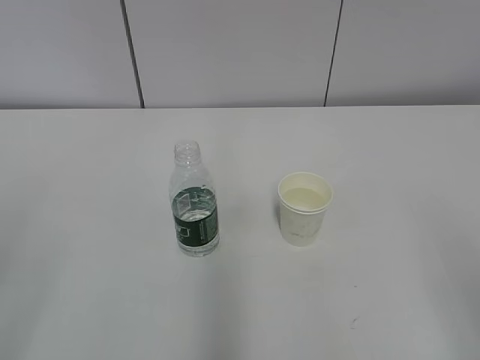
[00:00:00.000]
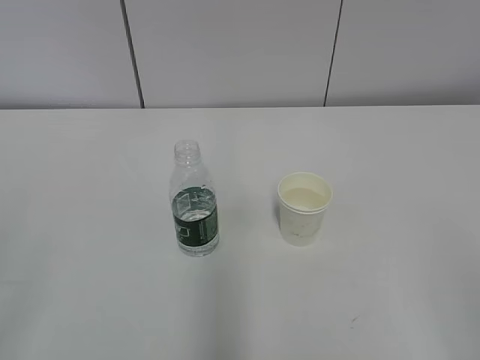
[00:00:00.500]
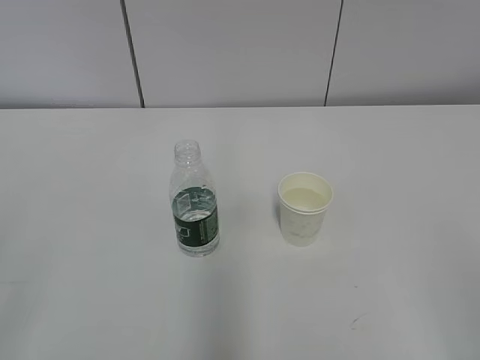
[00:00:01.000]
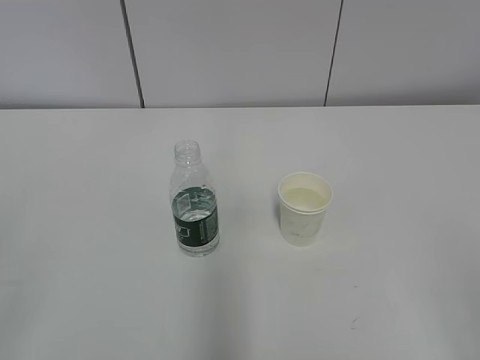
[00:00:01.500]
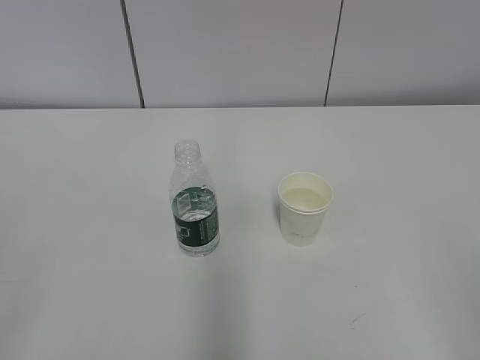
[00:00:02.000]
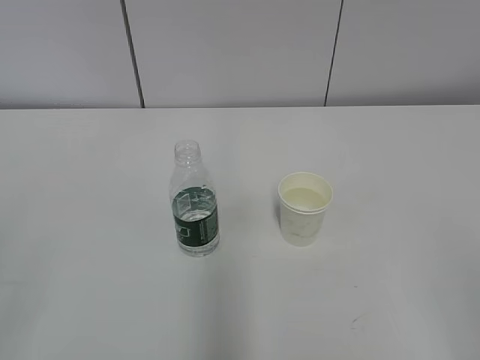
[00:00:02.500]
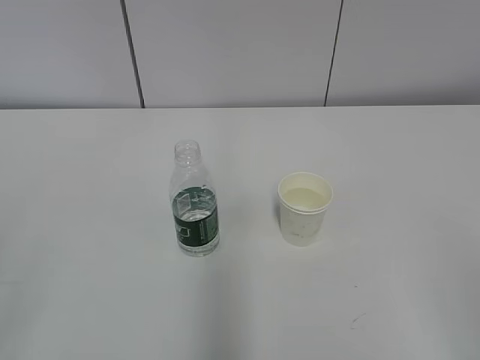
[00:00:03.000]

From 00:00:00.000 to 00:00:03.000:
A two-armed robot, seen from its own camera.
From 00:00:01.500 to 00:00:03.000: Both grippers stay about where they are.

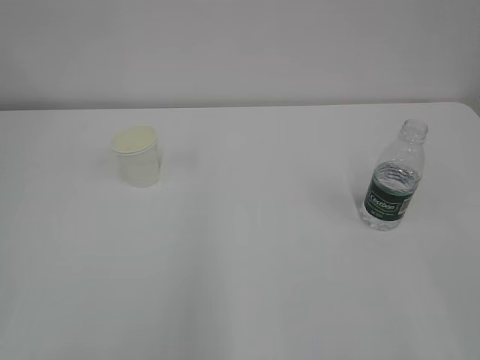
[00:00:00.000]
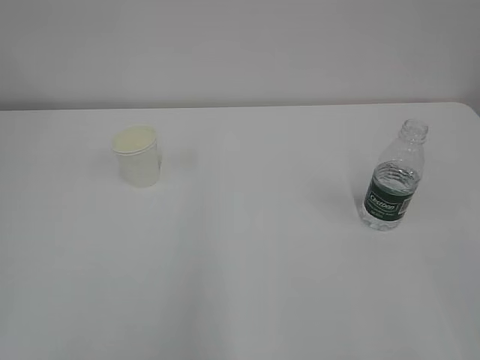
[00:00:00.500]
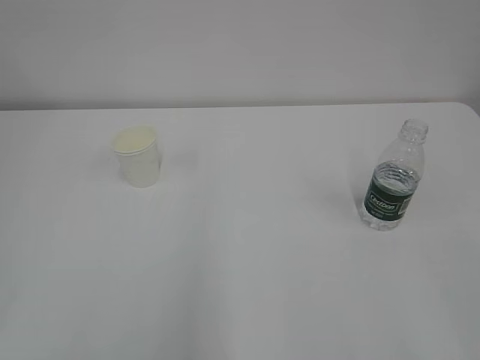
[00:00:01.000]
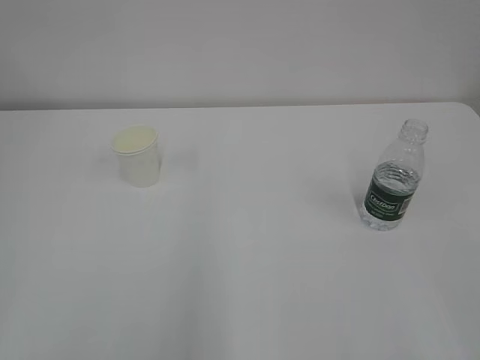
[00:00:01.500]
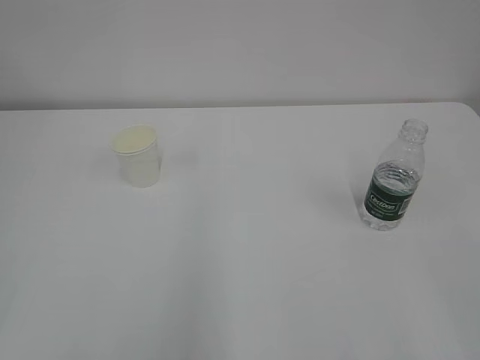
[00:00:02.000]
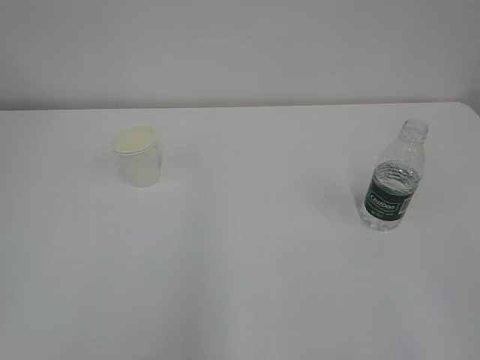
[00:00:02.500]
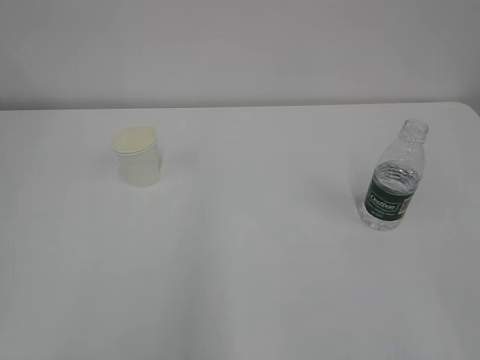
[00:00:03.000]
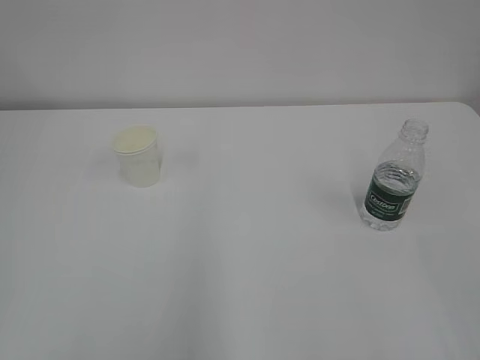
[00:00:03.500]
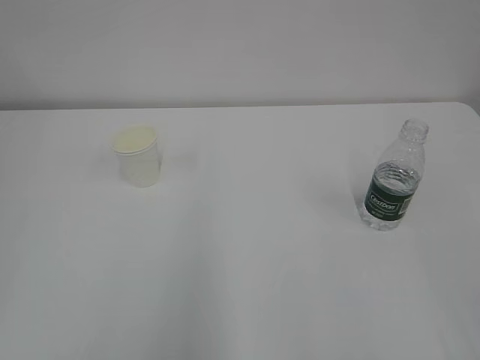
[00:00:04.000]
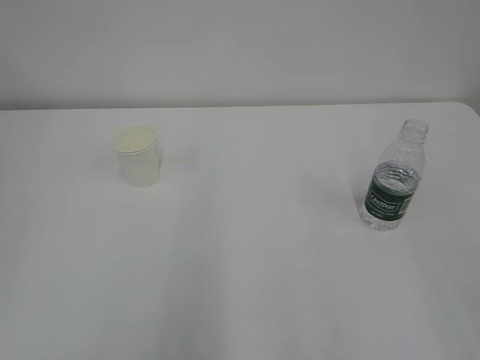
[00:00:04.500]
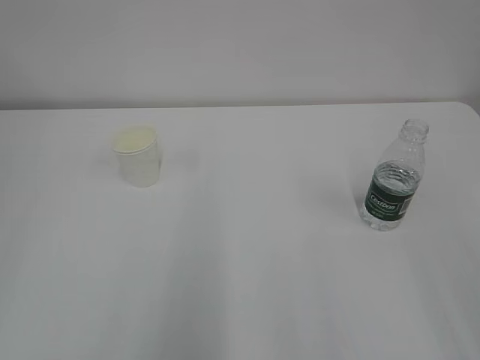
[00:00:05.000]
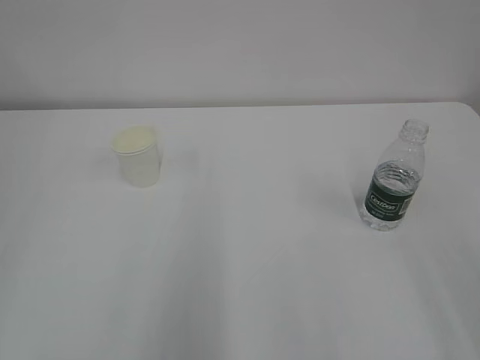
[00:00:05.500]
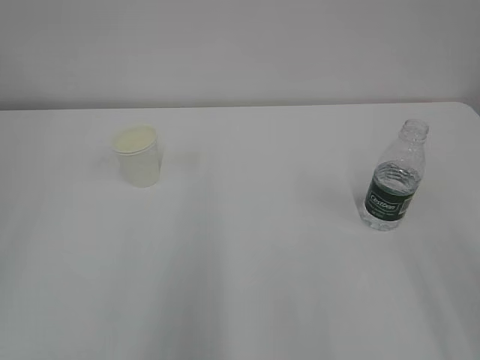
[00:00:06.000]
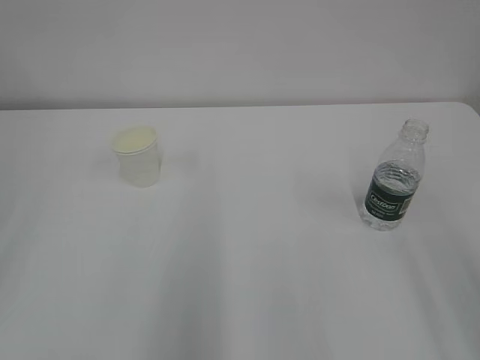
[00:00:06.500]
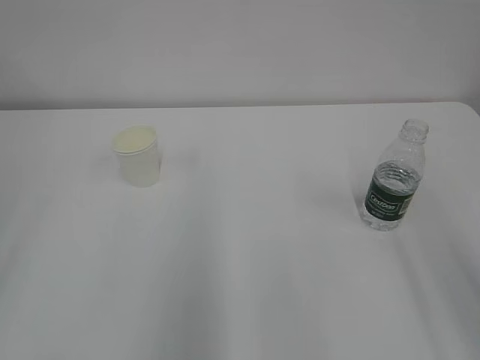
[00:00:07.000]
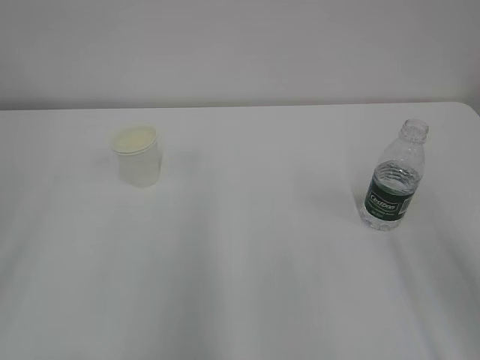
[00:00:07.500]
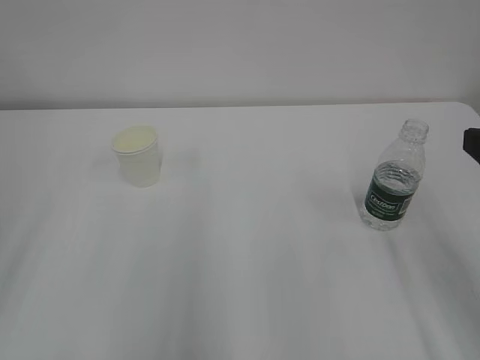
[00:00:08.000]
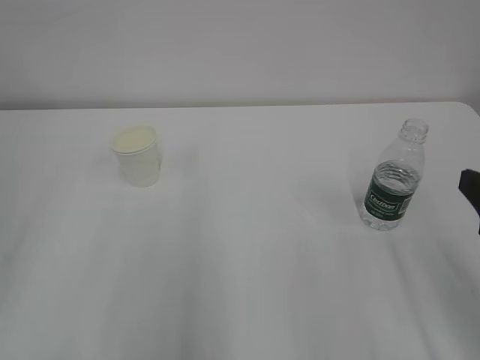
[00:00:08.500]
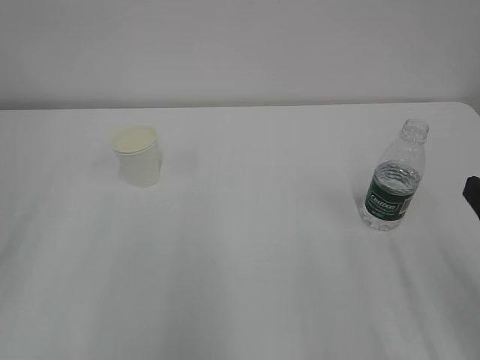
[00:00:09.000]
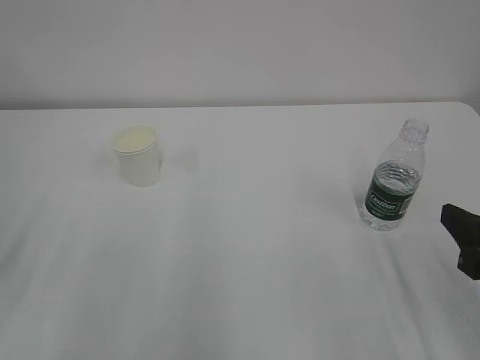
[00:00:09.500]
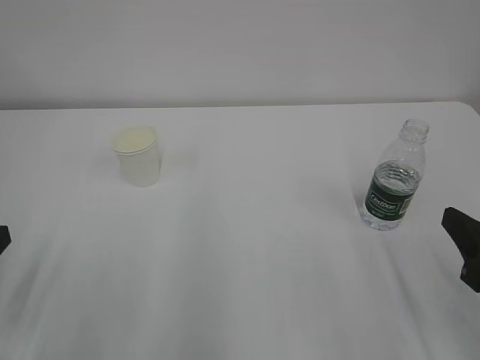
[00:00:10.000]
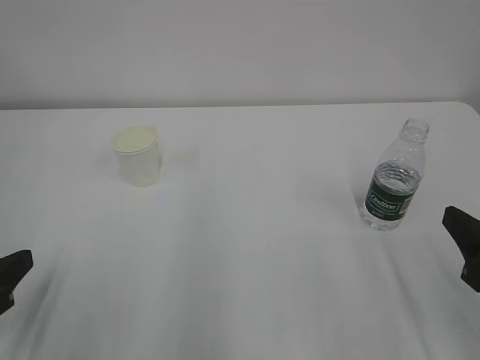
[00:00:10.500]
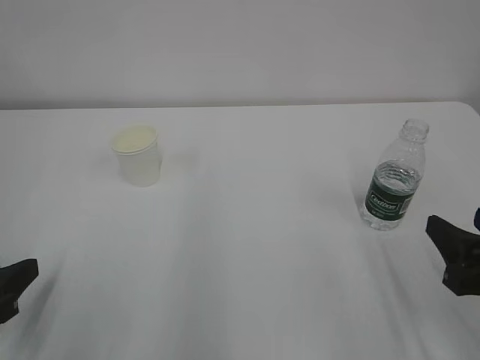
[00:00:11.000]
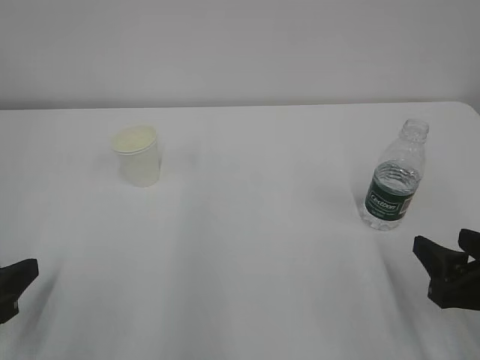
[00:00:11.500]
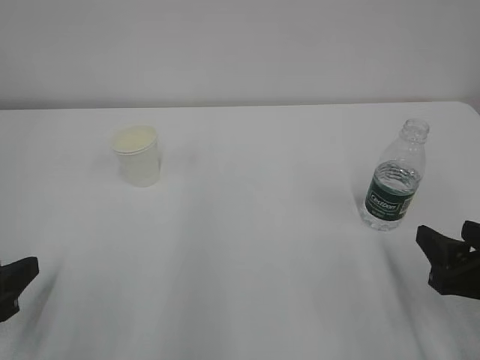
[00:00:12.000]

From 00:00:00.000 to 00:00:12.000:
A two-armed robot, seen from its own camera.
From 00:00:08.000 to 00:00:10.000: The right gripper heads downward, covering approximately 10 cm.
From 00:00:10.000 to 00:00:12.000: The right gripper changes place by about 5 cm.

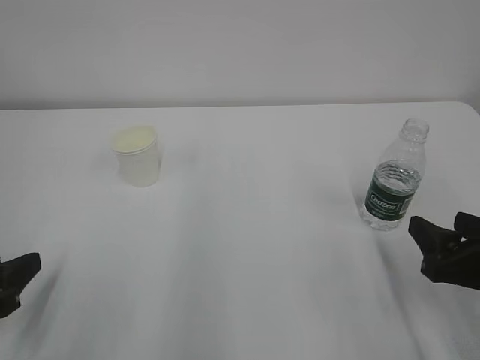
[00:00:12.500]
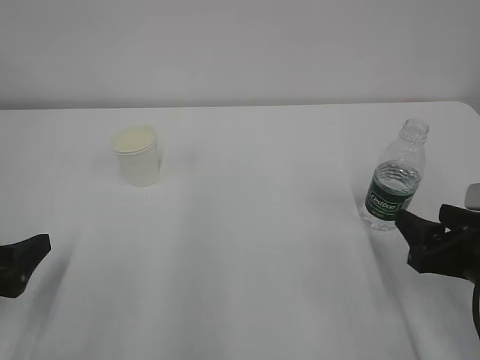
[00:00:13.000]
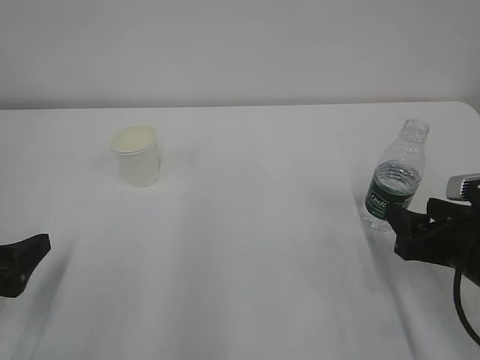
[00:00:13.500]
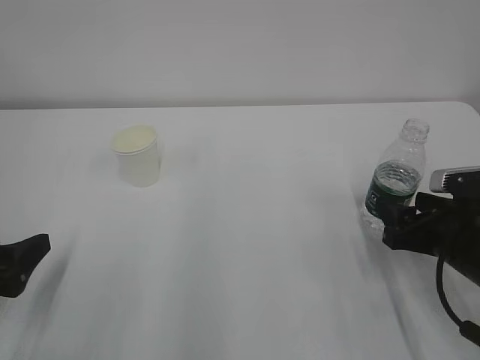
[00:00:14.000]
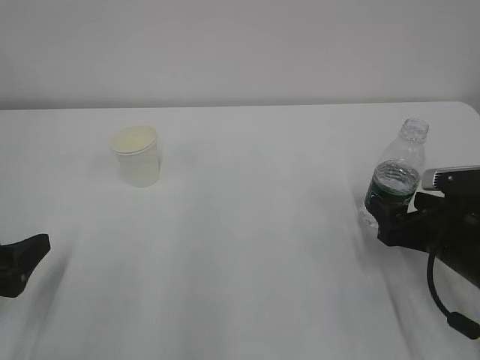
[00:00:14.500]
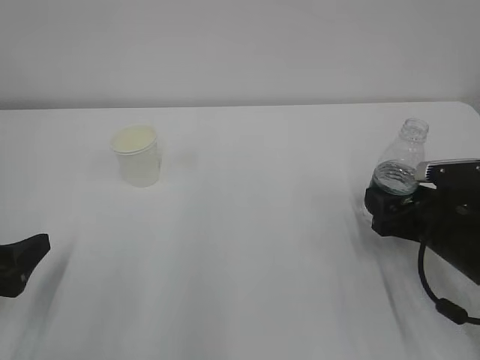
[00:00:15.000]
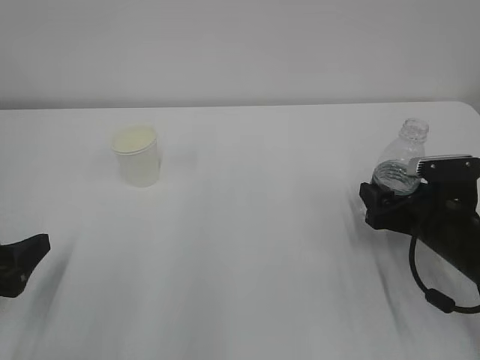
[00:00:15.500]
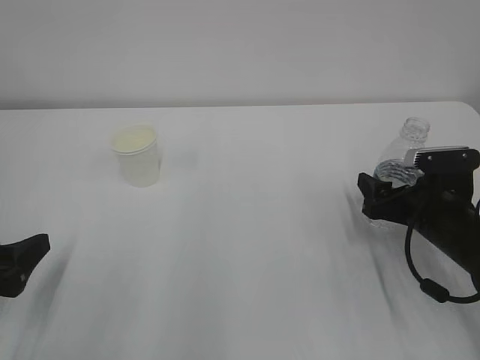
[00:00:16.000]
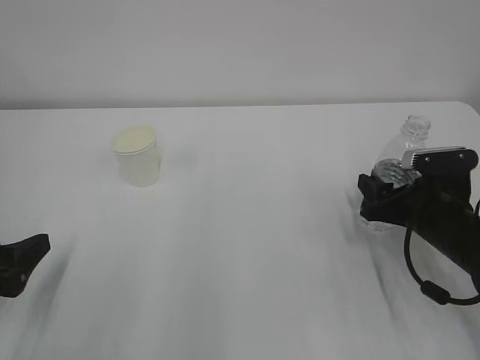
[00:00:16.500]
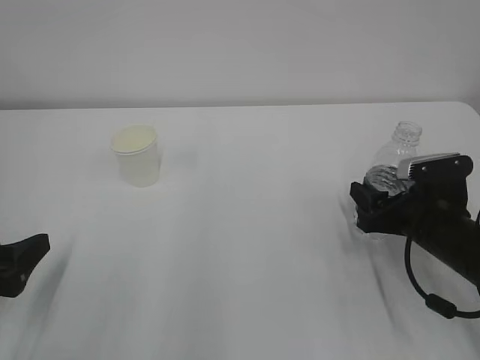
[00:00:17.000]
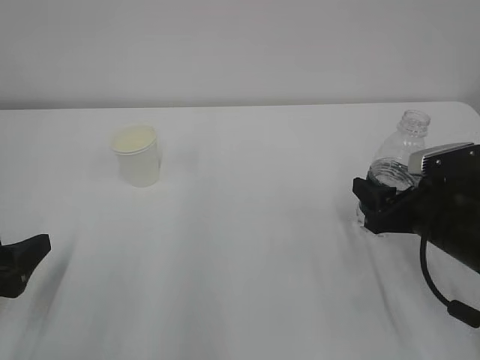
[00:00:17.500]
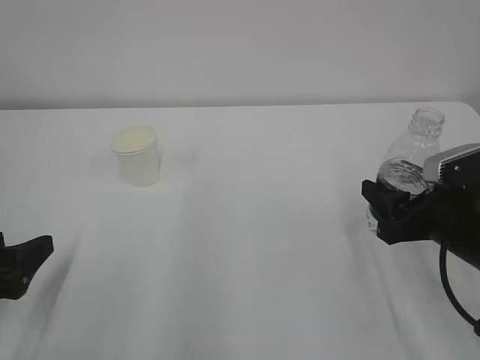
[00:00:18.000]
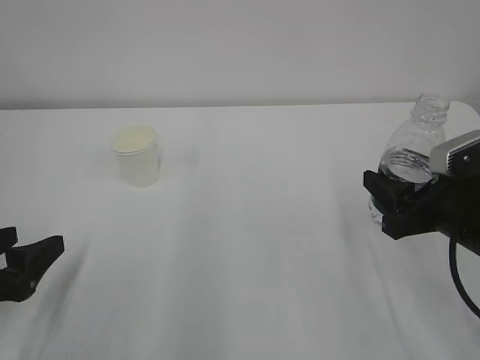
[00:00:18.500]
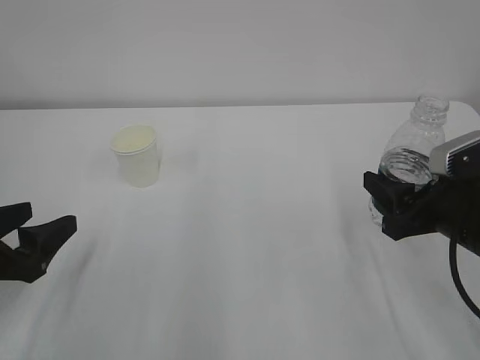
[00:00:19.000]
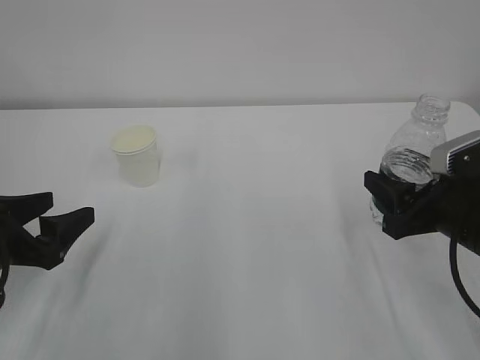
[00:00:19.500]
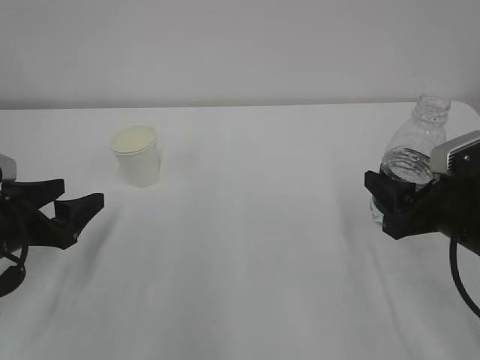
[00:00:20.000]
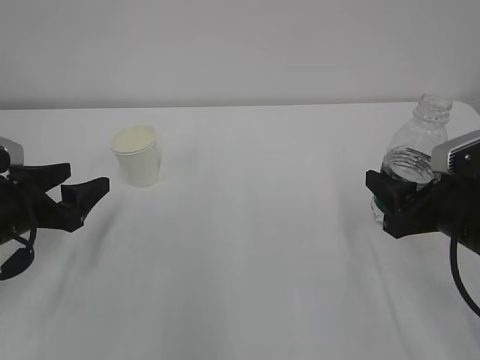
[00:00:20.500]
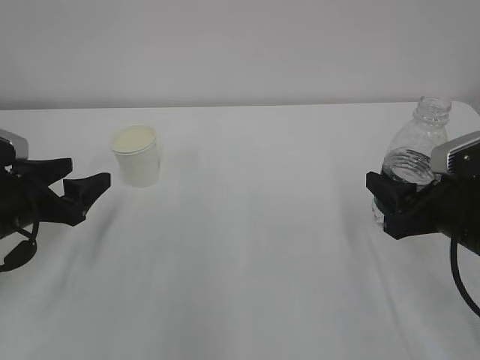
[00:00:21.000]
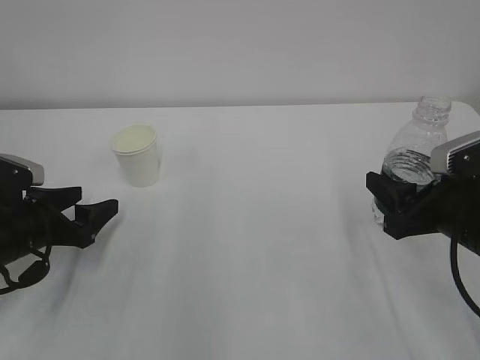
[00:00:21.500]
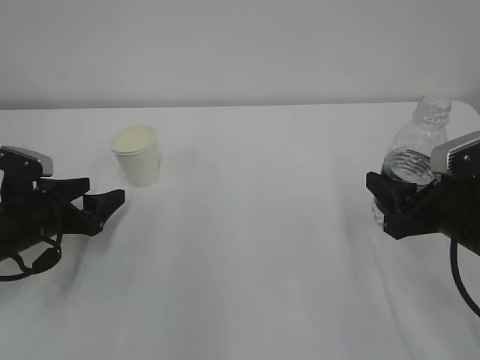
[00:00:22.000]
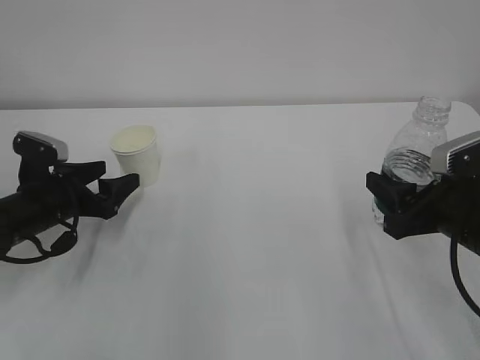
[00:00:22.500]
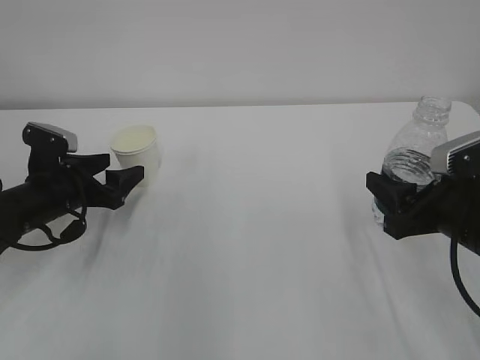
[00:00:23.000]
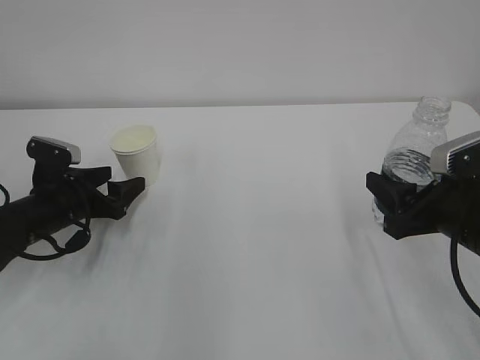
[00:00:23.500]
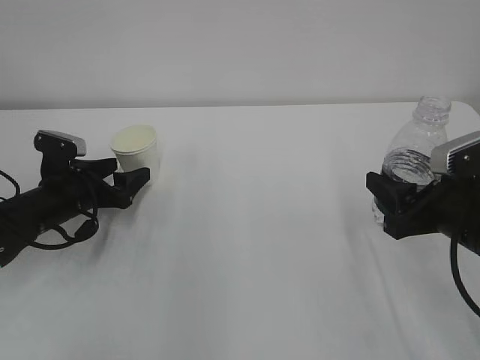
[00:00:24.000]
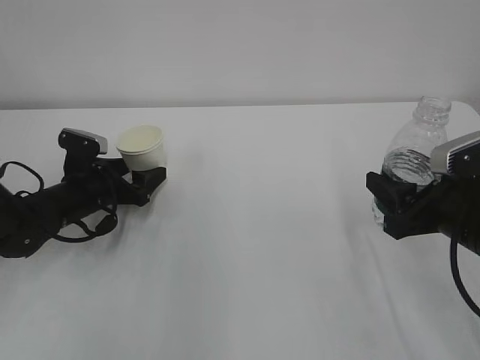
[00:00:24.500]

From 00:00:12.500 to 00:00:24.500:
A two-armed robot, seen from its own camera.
From 00:00:12.500 to 00:00:14.500: The left gripper opens up; the right gripper heads forward, covering roughly 10 cm, and opens its fingers.
From 00:00:14.500 to 00:00:16.500: The right gripper closes up.
From 00:00:16.500 to 00:00:18.500: The right gripper travels upward and backward by roughly 10 cm.
From 00:00:18.500 to 00:00:20.500: The left gripper is displaced forward by about 10 cm.
From 00:00:20.500 to 00:00:22.500: The left gripper goes approximately 5 cm forward.
From 00:00:22.500 to 00:00:24.500: The left gripper travels forward by about 5 cm.
